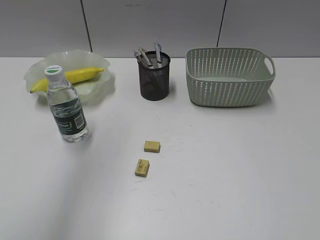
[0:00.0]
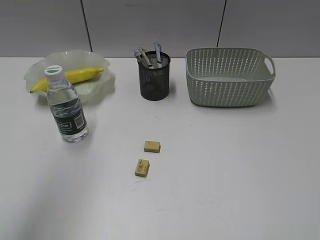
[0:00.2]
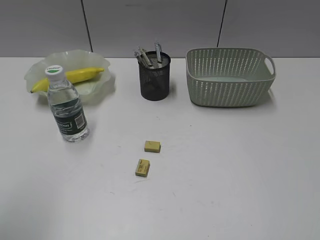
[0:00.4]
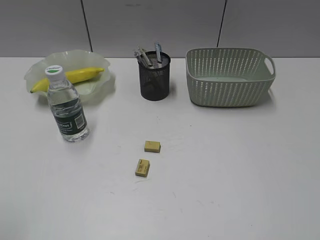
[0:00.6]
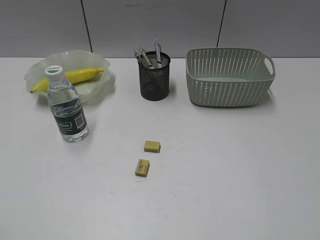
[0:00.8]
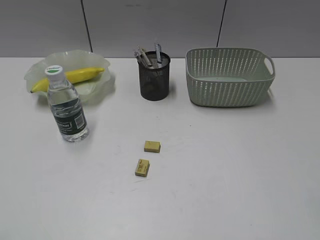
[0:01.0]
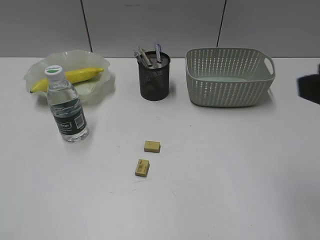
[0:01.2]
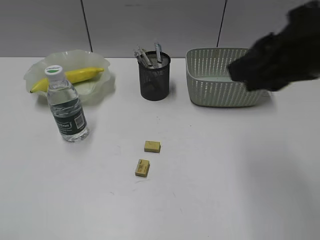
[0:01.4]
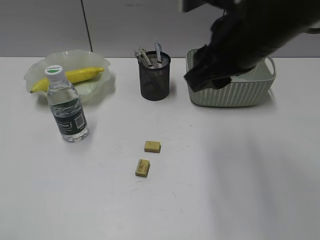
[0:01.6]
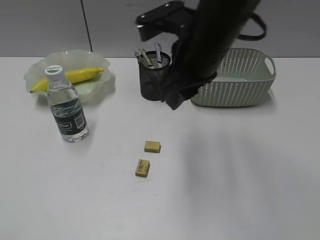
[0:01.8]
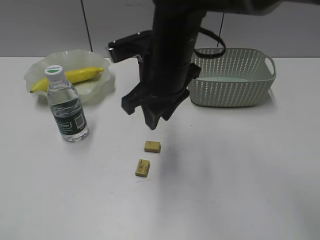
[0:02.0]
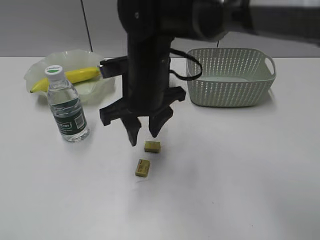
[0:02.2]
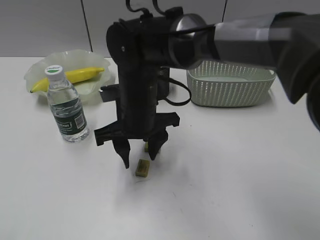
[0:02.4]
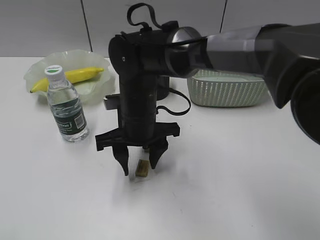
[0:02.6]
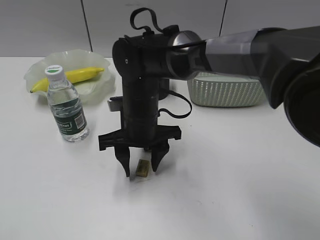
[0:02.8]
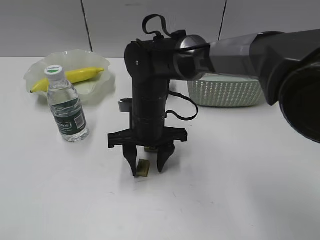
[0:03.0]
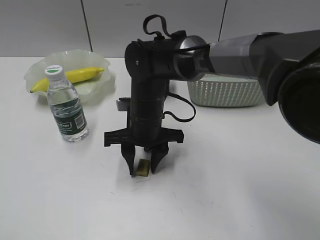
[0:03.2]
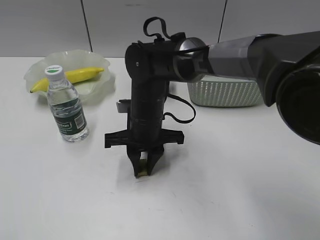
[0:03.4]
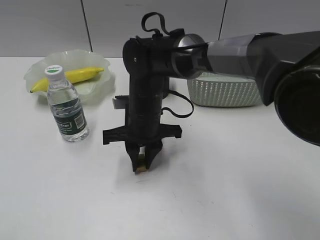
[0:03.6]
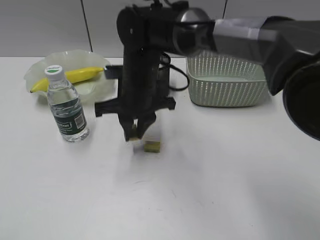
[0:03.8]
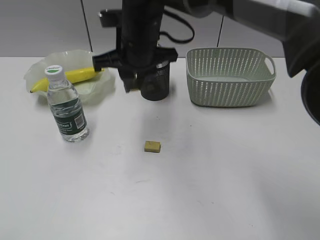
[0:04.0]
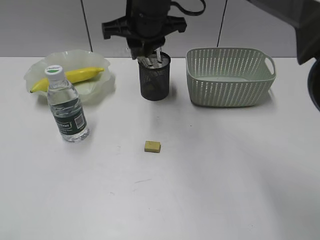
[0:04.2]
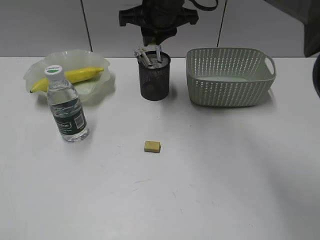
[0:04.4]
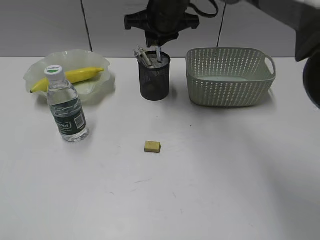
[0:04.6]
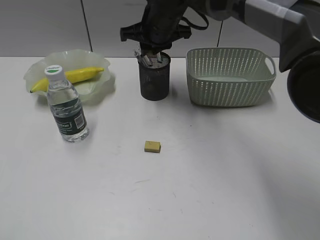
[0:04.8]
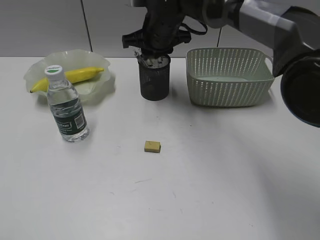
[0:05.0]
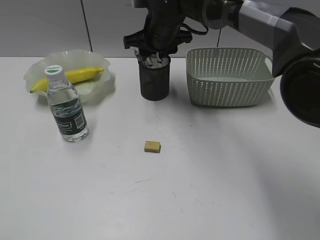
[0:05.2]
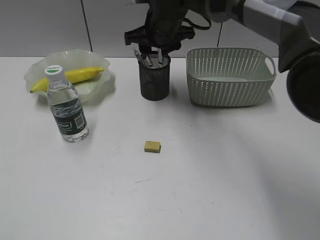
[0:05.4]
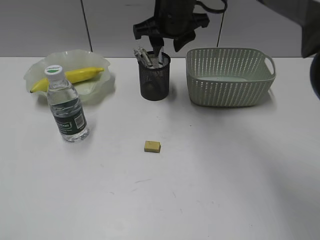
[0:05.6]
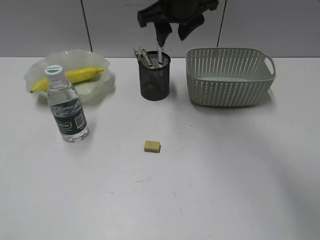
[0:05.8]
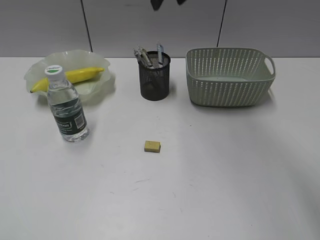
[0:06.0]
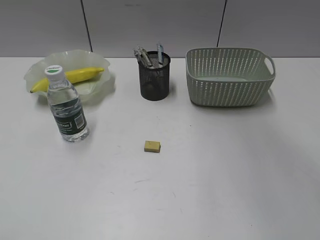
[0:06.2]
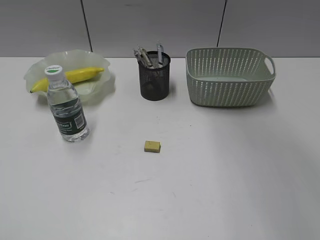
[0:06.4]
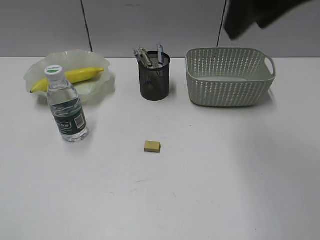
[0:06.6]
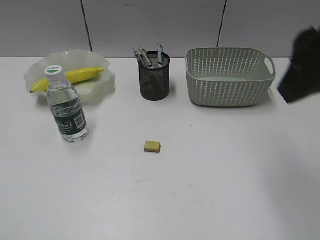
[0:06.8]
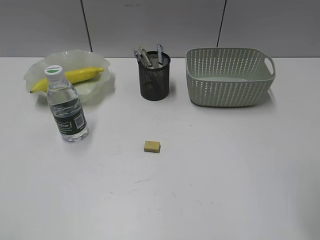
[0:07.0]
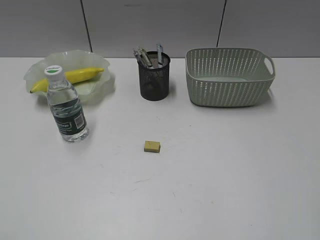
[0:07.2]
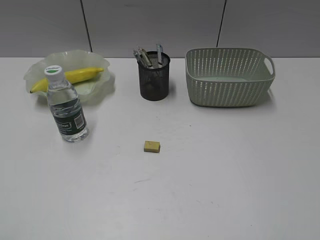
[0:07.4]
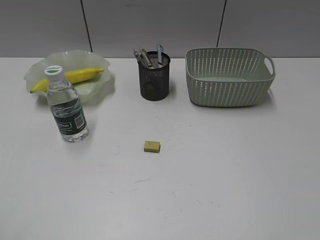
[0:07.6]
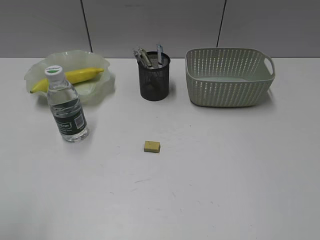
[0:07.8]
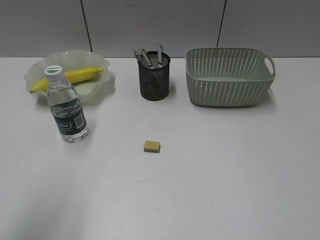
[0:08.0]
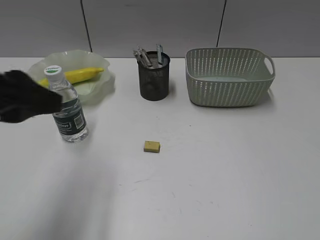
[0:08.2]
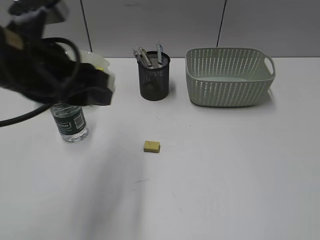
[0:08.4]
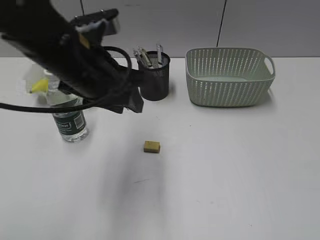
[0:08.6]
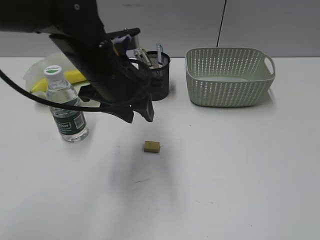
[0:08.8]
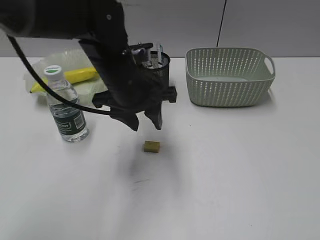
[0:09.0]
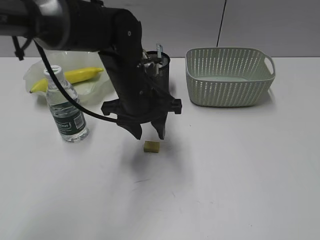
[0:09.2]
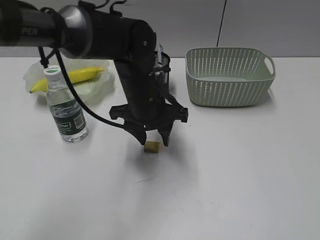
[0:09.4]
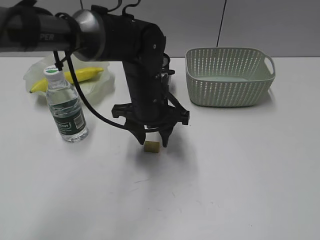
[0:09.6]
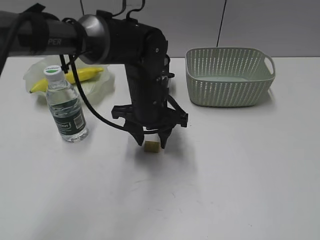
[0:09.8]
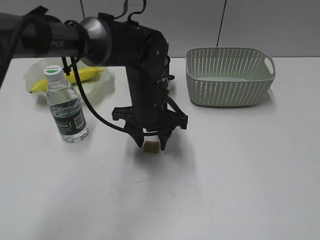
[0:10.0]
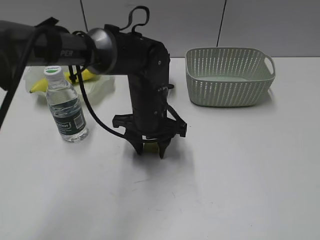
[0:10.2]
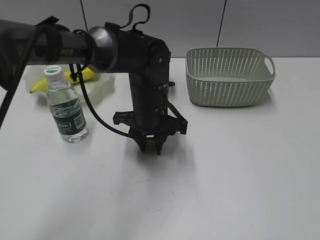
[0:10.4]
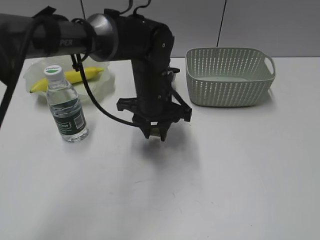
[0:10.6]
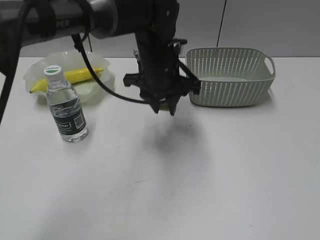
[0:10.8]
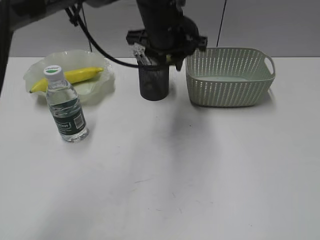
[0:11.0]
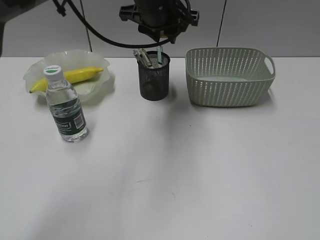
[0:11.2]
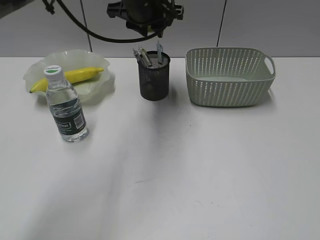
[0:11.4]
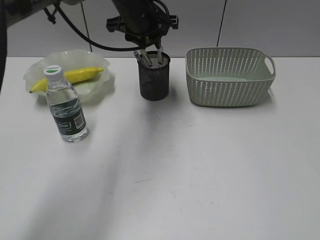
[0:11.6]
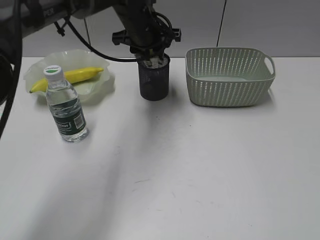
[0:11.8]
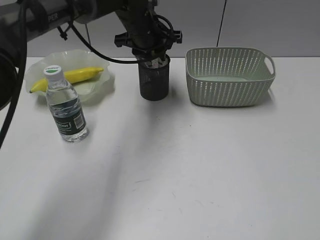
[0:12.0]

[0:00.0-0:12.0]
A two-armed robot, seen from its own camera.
Step, 0:00.0 to 0:03.4: Grasp the eraser with right gripper.
Step, 0:03.6 to 0:05.2: Place the eraser in pen holder with right gripper.
Step, 0:05.4 to 0:10.2: Grasp the eraser with left gripper.
0:00.0 to 0:01.6: The left gripper moves backward, downward and to the left, roughly 30 cm; the right gripper shifts about 35 cm forward and to the left.
0:01.6 to 0:03.0: The right gripper travels downward and to the left by roughly 25 cm.
0:03.0 to 0:04.4: The right gripper heads upward and forward, covering some 20 cm, and closes up.
0:04.4 to 0:06.0: The right gripper shifts some 10 cm upward, and opens.
0:06.0 to 0:07.6: The right gripper shifts about 50 cm backward and to the right.
0:07.6 to 0:09.0: The left gripper moves forward and to the right, about 40 cm.
0:09.0 to 0:10.4: The left gripper goes approximately 10 cm downward.
0:10.4 to 0:12.0: The left gripper heads forward and upward, covering roughly 15 cm.

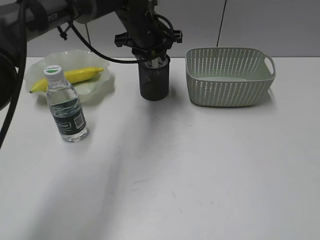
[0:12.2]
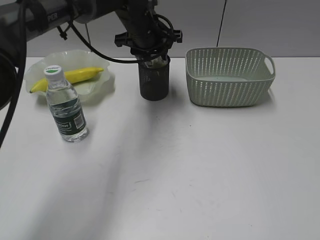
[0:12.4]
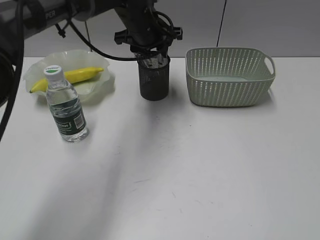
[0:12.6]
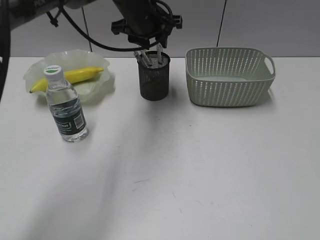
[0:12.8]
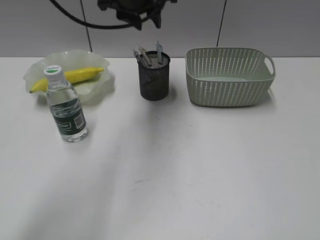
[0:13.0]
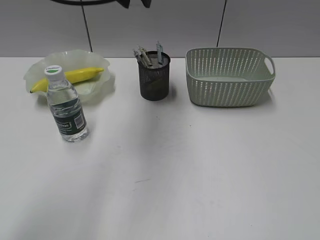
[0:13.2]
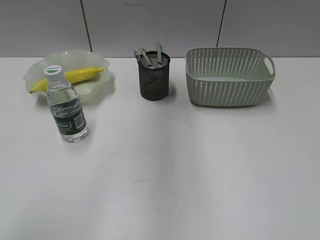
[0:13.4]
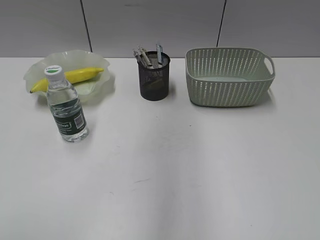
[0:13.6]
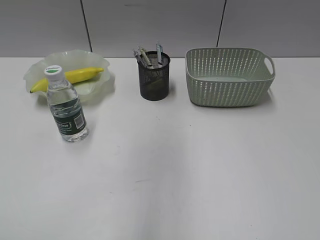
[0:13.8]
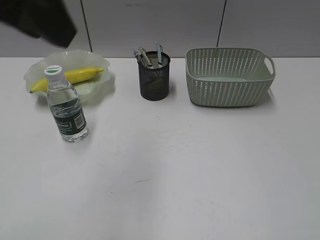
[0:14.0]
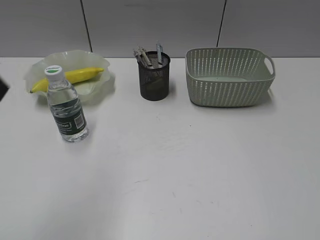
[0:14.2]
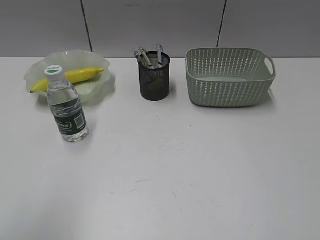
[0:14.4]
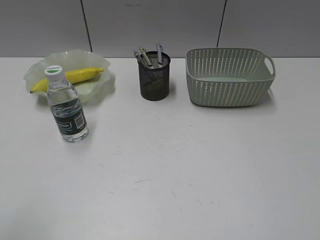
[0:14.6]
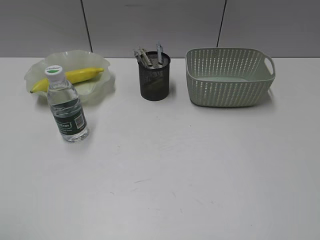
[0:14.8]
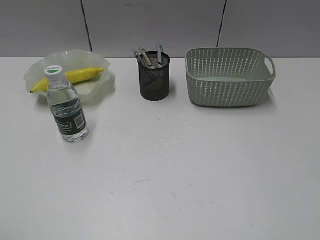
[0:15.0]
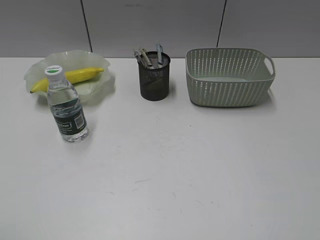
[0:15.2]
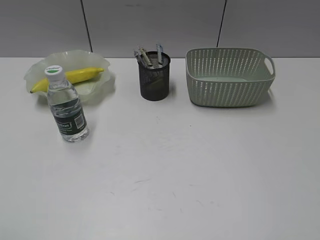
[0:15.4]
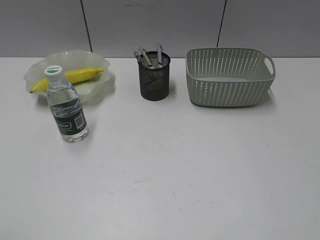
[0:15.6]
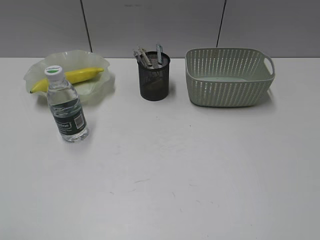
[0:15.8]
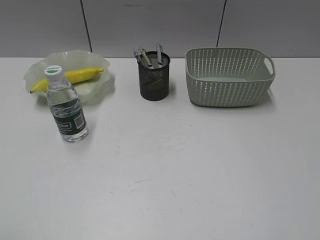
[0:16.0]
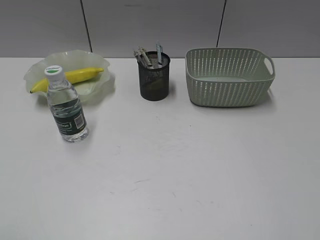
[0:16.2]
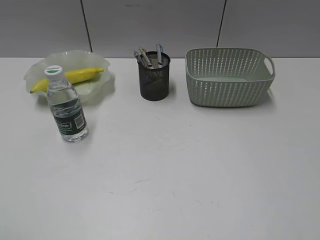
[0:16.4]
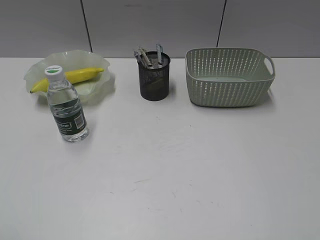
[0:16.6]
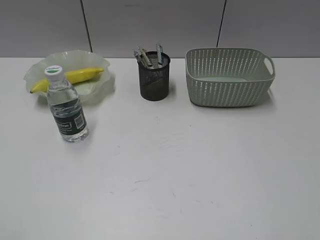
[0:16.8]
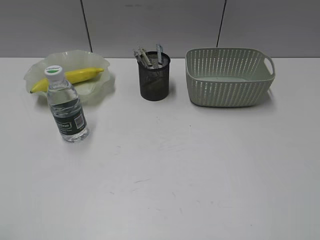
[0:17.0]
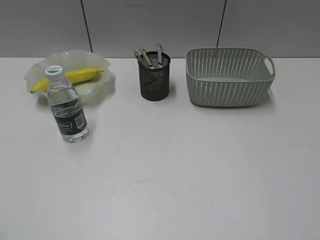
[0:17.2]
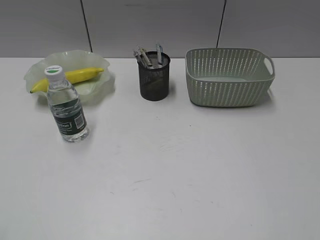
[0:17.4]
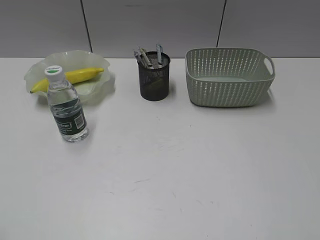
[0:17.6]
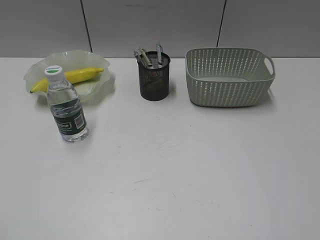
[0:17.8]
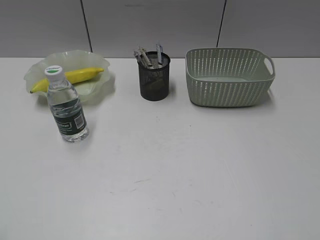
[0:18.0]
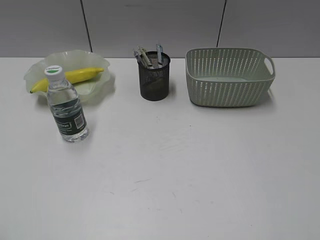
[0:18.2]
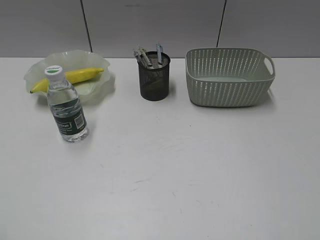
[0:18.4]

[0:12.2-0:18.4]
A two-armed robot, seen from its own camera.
0:12.2 to 0:13.8: The left gripper heads backward and upward, covering some 30 cm.
0:13.8 to 0:15.4: The left gripper travels to the left, backward and downward by roughly 35 cm.

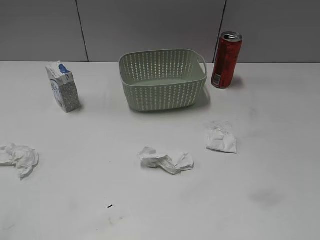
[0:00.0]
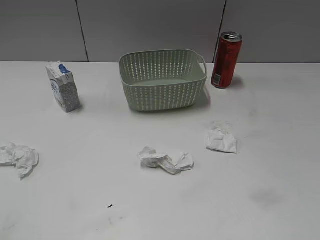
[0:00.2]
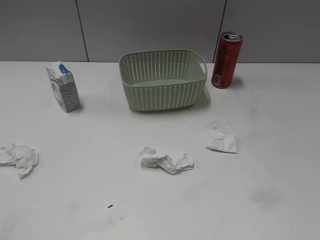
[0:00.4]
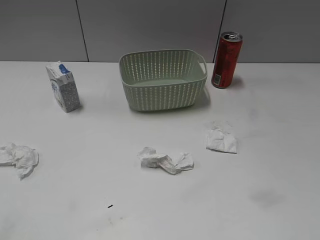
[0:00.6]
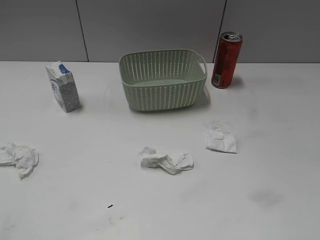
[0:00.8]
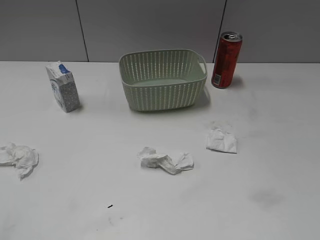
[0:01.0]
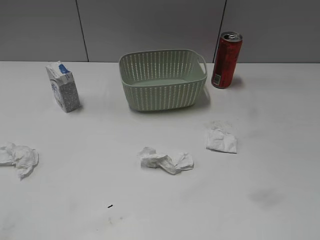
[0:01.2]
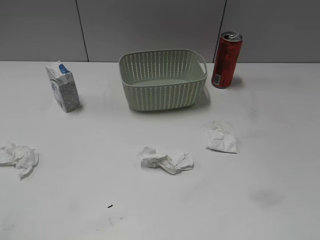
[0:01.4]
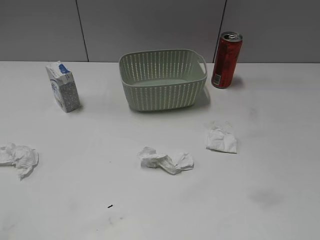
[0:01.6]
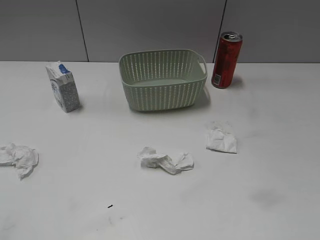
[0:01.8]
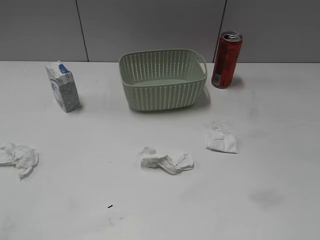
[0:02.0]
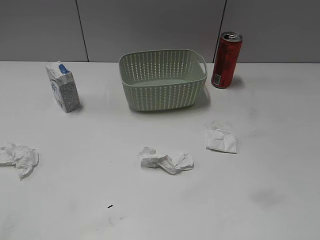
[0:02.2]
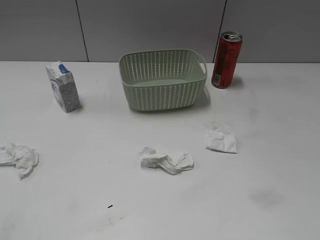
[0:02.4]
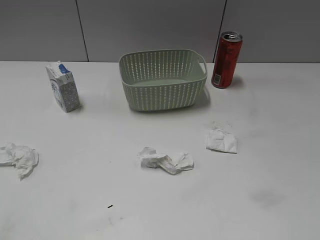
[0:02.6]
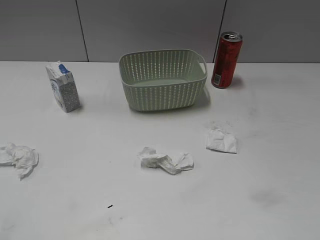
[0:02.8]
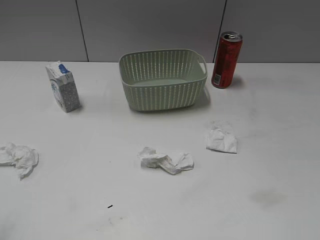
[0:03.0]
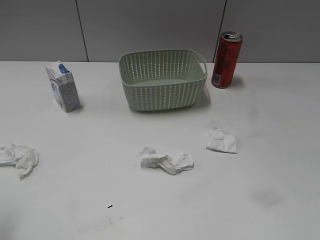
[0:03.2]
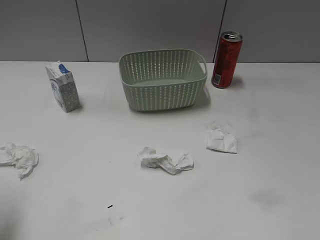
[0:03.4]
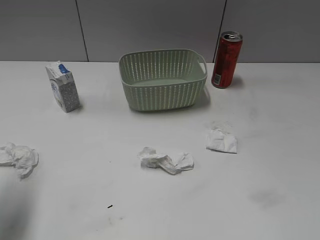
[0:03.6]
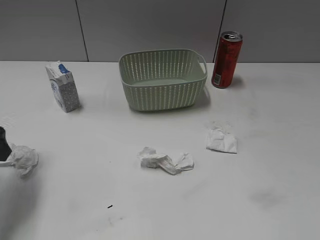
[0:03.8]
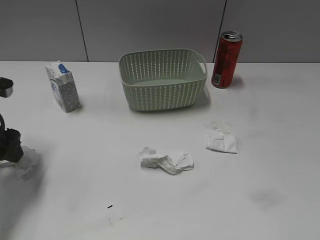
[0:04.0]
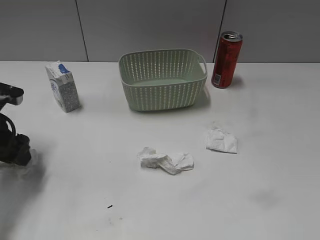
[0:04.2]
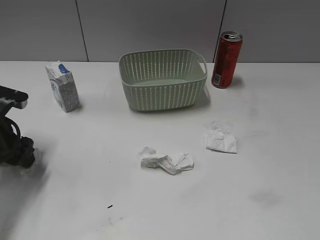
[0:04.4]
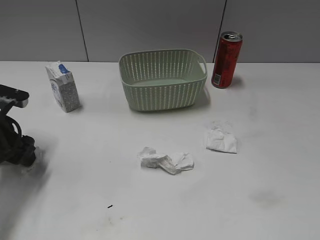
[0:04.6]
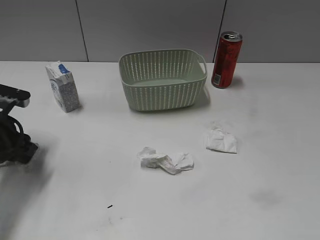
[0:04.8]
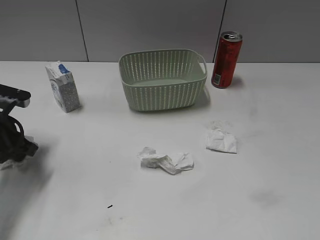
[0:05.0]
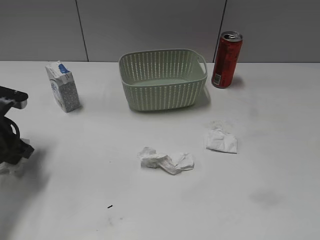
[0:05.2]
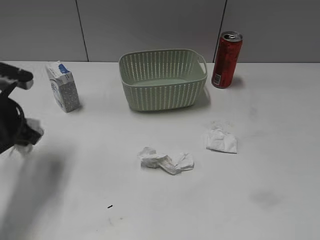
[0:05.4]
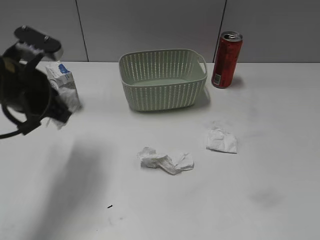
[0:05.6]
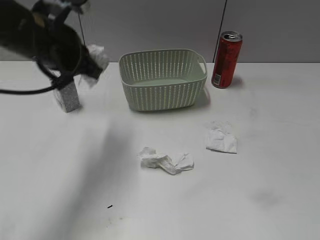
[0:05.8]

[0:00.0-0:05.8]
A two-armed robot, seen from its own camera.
Step, 0:03.6 to 0:05.2: Grasp the waste paper with left gripper.
0:02.8 to 0:04.4: The left gripper moves forward and downward, some 30 cm.
0:04.4 to 0:05.8: The left gripper goes roughly 20 cm upward and to the right, and closes its fingers.
